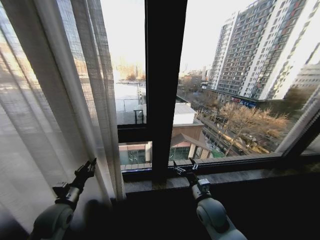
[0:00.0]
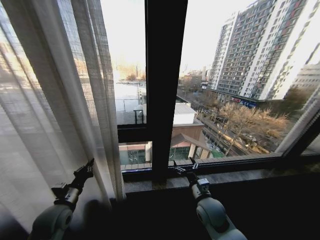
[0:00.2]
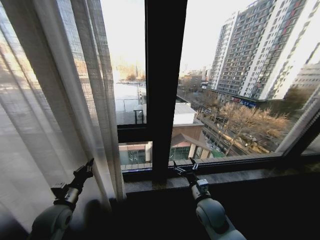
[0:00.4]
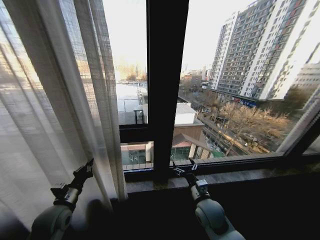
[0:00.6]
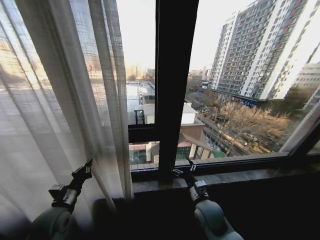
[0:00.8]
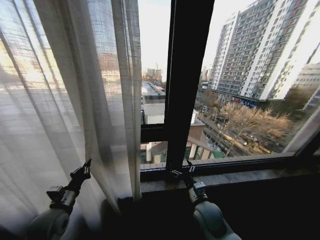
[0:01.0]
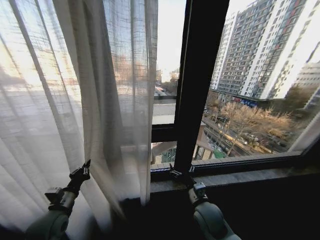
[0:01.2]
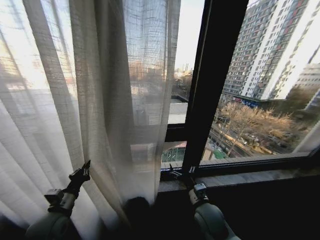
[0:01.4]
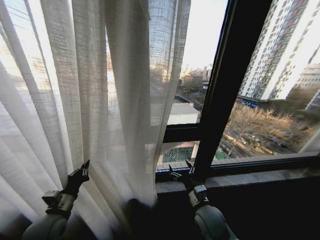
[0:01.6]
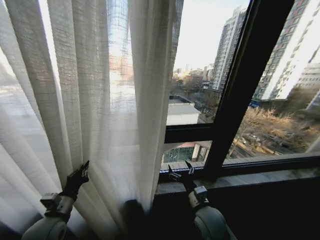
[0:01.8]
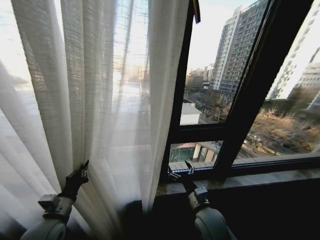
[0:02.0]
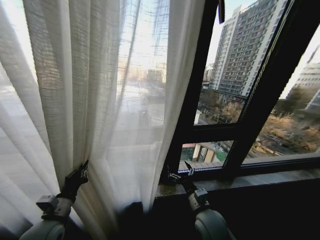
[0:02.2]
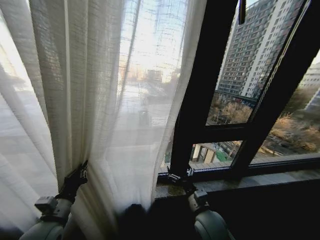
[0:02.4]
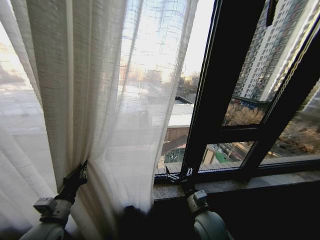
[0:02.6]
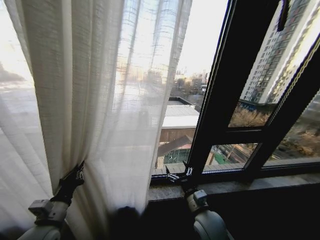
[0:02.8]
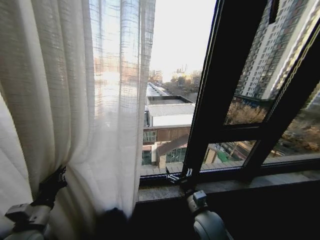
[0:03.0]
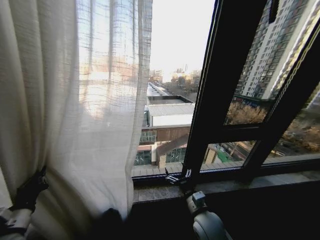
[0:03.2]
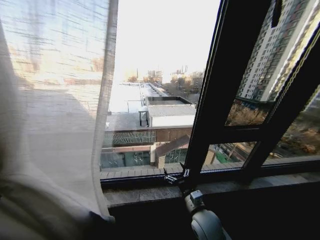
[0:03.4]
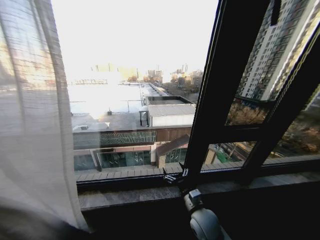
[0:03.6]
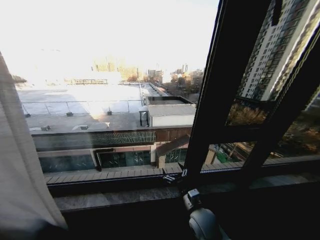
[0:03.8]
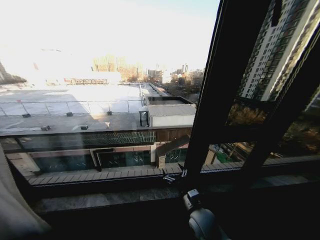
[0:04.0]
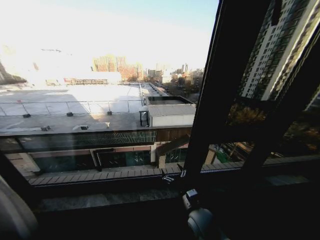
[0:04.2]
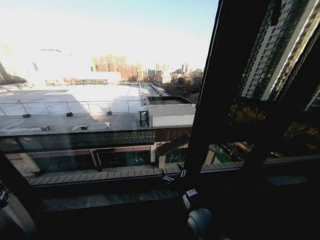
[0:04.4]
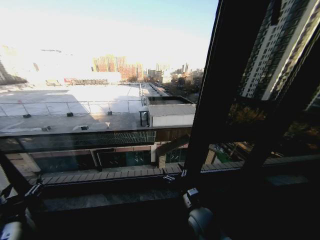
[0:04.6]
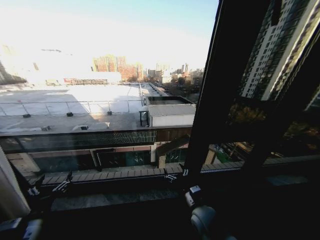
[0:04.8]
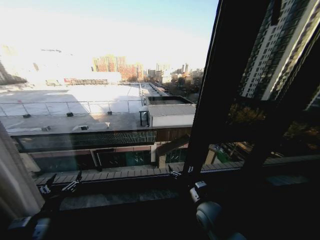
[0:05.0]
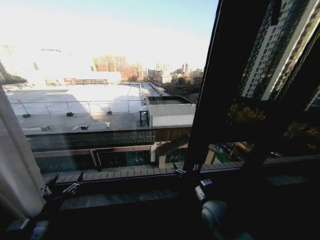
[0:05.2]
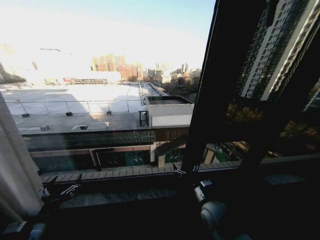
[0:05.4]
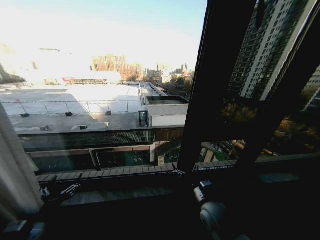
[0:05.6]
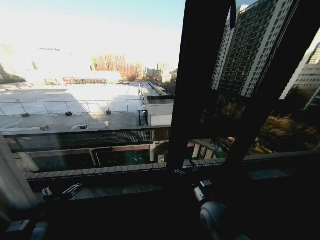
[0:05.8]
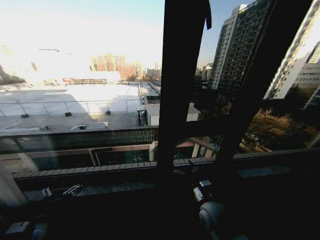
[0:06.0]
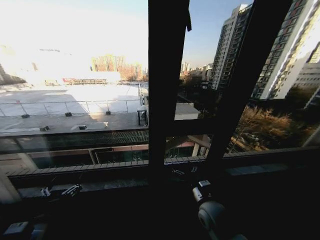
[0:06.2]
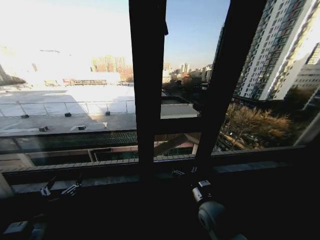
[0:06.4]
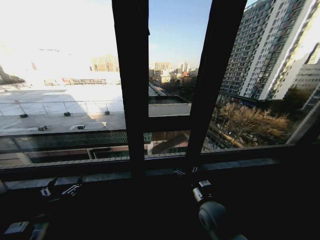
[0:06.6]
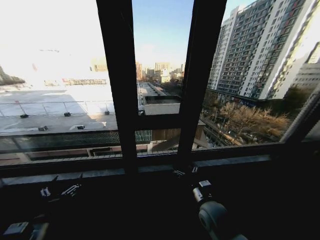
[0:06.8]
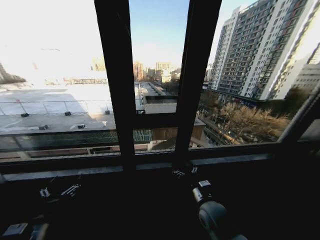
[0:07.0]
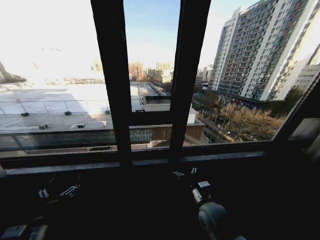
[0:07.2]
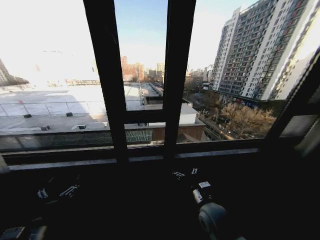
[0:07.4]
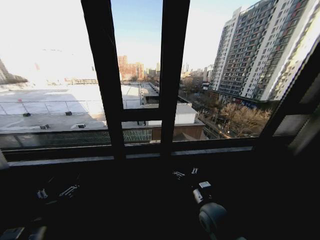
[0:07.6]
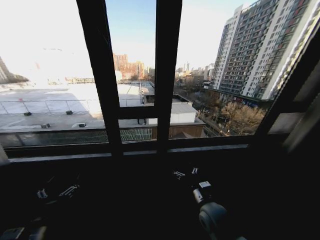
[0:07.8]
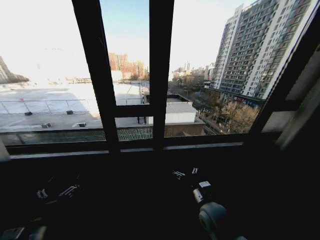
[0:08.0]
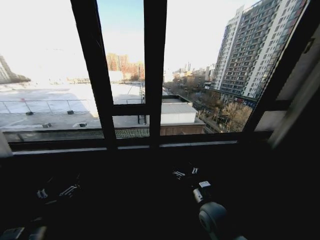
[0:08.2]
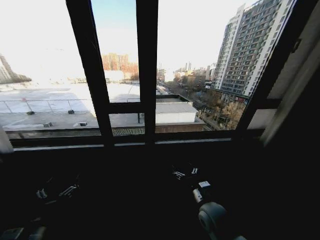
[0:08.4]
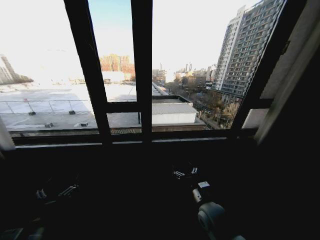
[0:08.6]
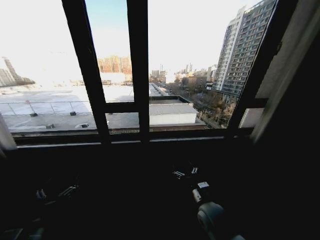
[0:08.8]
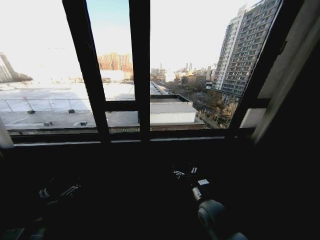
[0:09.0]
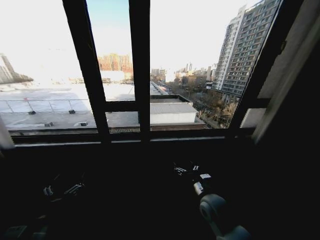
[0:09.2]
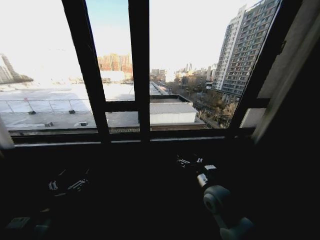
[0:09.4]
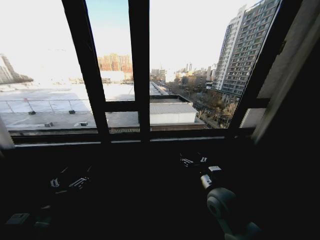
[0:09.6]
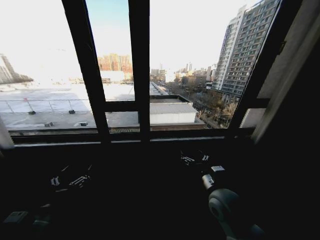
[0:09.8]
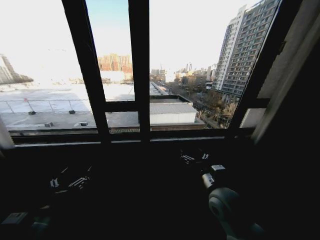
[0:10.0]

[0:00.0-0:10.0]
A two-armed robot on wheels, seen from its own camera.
Task of the whole recording: Open the curtains by pulling them apart, changing their state from closed to fully open.
0:02.8 to 0:04.2: The left gripper shifts some 20 cm to the left.
0:04.2 to 0:05.8: The right gripper ends up some 5 cm from where it was; the left gripper heads to the right, covering roughly 20 cm, and opens up.
0:08.6 to 0:10.0: The right gripper heads upward, covering approximately 10 cm. Meanwhile the left gripper shifts about 5 cm upward.
